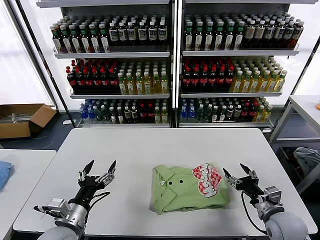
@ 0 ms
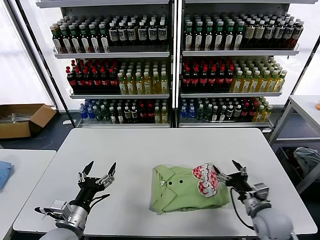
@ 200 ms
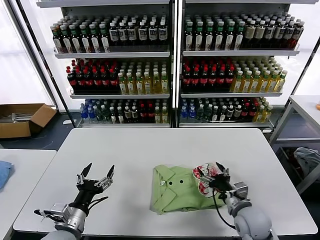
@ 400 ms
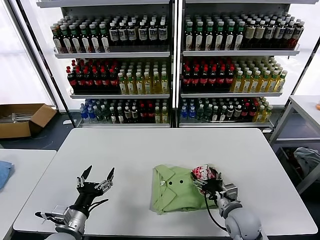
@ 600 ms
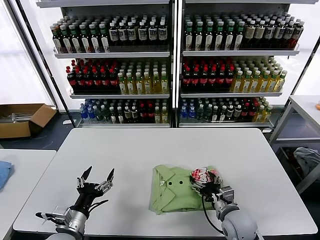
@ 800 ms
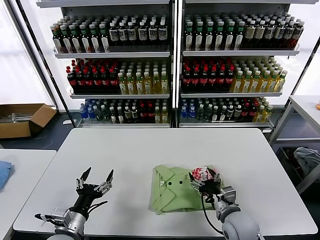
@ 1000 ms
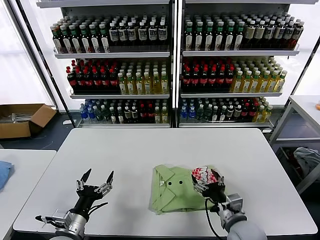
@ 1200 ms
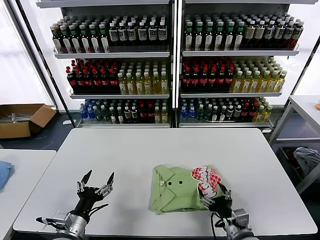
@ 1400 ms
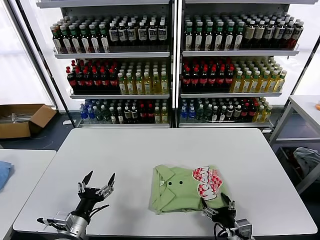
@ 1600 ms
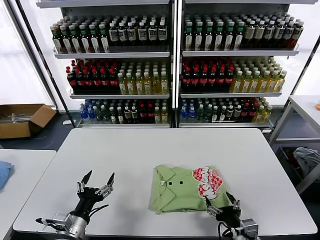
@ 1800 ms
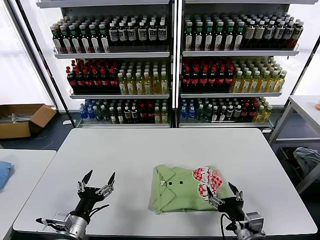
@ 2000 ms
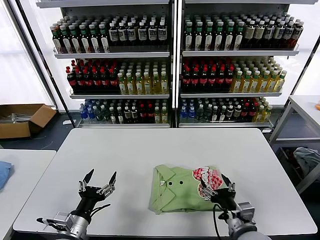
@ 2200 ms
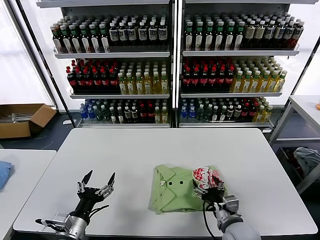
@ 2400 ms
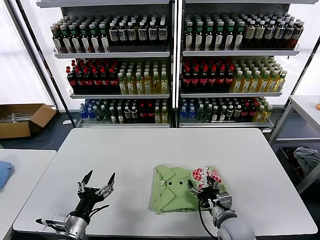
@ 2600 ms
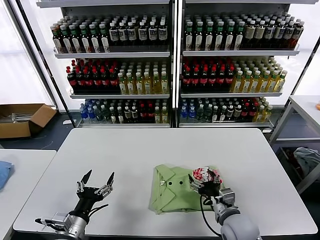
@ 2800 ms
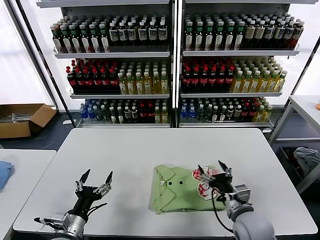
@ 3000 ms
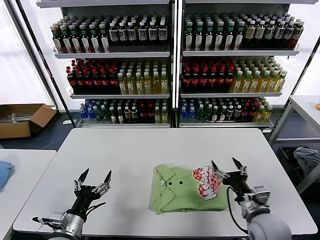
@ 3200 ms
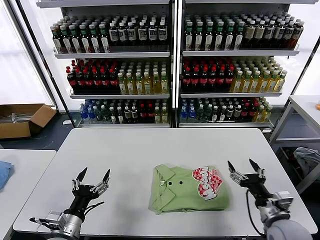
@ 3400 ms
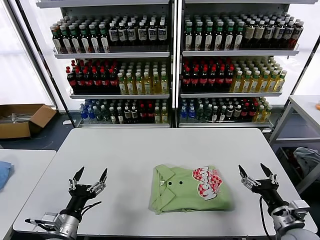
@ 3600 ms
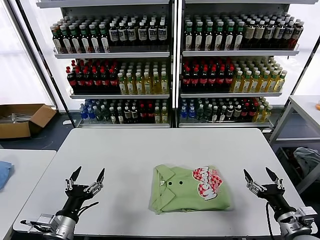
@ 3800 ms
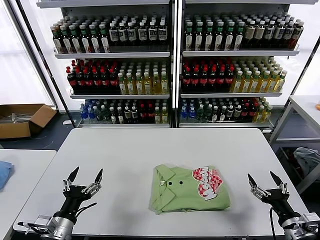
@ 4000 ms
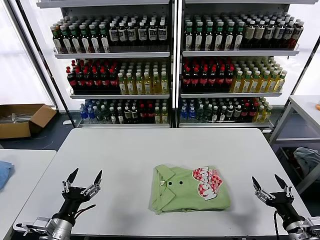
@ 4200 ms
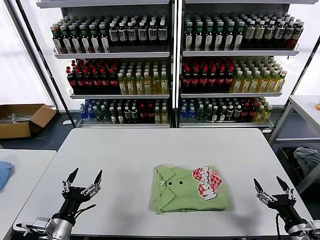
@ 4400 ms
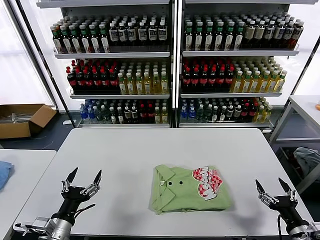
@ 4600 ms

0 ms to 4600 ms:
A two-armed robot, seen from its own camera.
Task of the whole recording: fold and organize the clothes.
Step, 0 ms to 2600 ms: Drag the clothes to the center of the table.
0 ms to 1600 ms: The right gripper is displaced to the left and backward by about 15 cm. Meanwhile the left gripper moves some 5 cm.
1600 ms to 3000 ms: The right gripper shifts about 10 cm forward.
3000 ms to 4600 ms: The right gripper travels to the right and backward by approximately 20 cm.

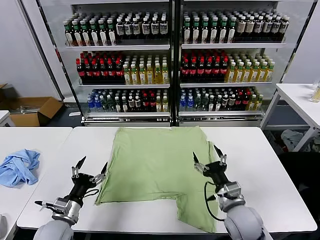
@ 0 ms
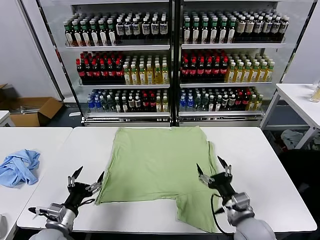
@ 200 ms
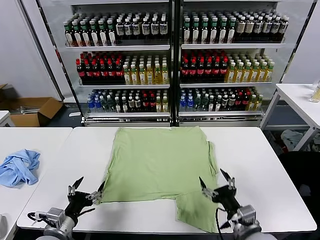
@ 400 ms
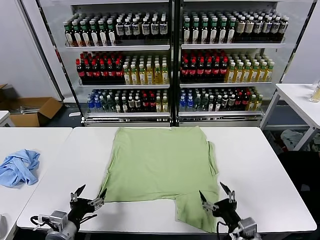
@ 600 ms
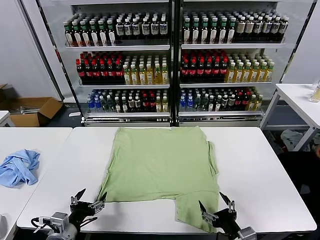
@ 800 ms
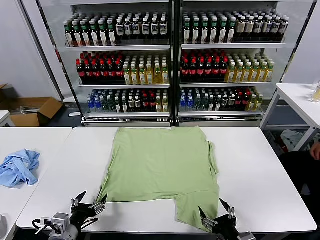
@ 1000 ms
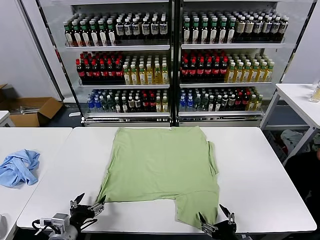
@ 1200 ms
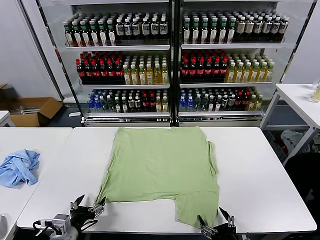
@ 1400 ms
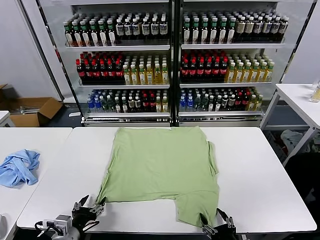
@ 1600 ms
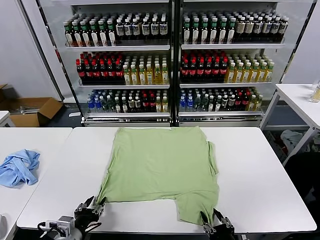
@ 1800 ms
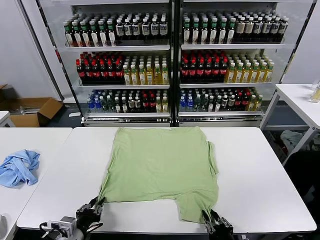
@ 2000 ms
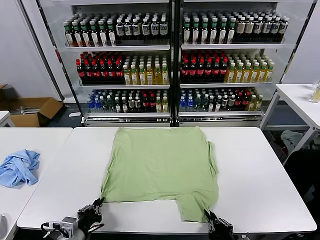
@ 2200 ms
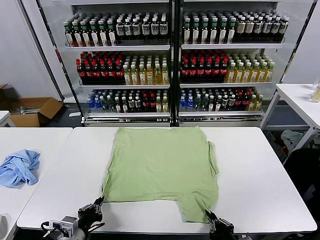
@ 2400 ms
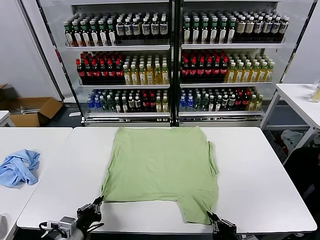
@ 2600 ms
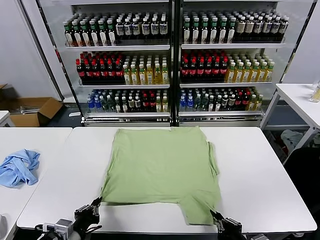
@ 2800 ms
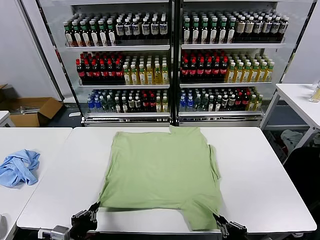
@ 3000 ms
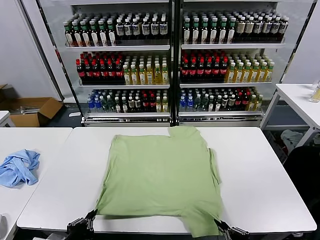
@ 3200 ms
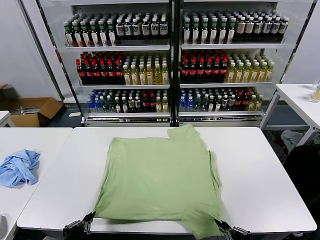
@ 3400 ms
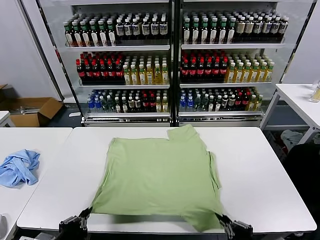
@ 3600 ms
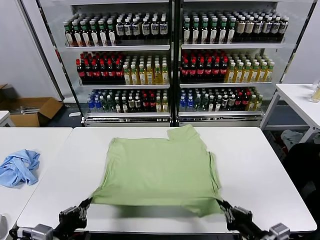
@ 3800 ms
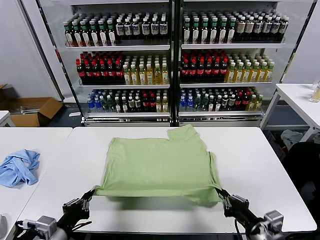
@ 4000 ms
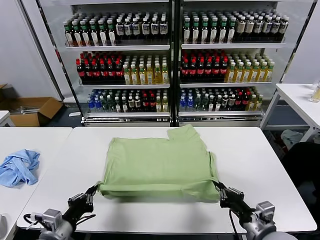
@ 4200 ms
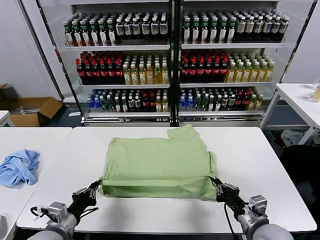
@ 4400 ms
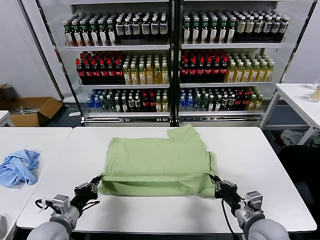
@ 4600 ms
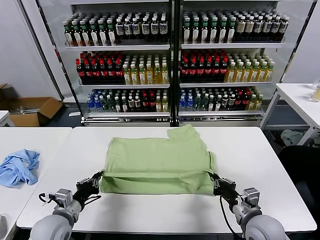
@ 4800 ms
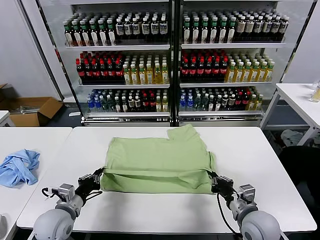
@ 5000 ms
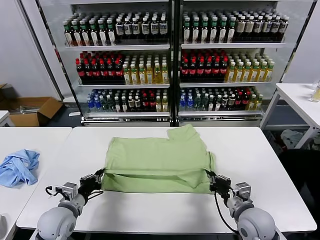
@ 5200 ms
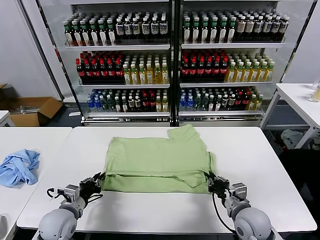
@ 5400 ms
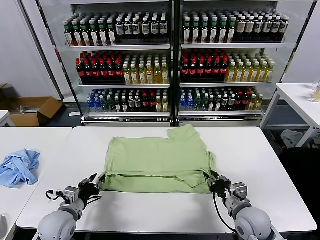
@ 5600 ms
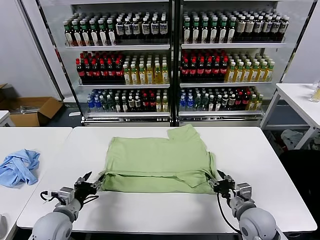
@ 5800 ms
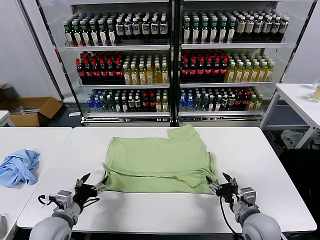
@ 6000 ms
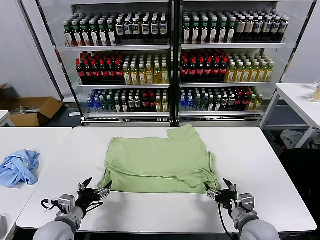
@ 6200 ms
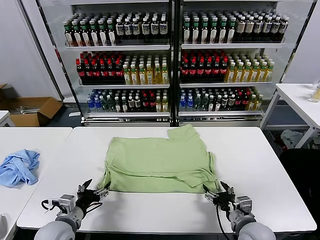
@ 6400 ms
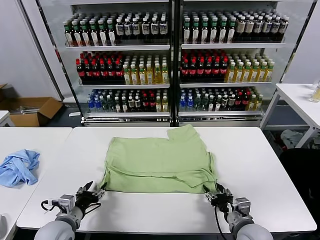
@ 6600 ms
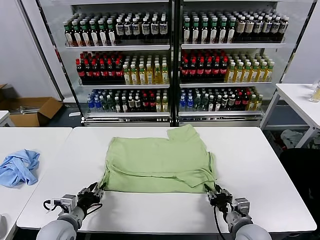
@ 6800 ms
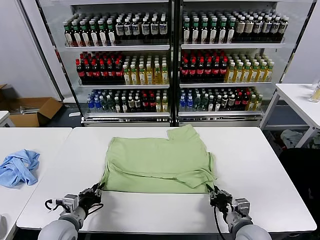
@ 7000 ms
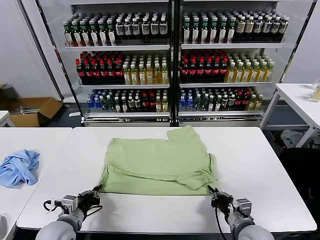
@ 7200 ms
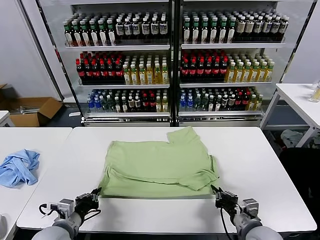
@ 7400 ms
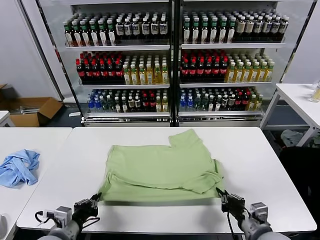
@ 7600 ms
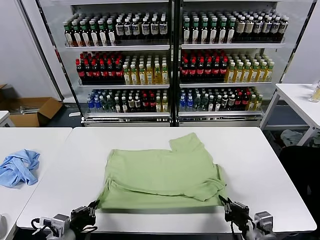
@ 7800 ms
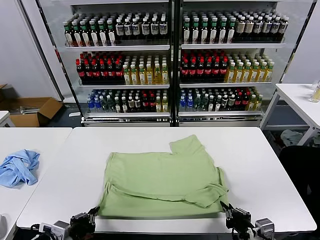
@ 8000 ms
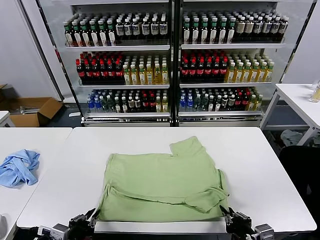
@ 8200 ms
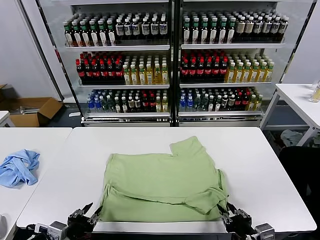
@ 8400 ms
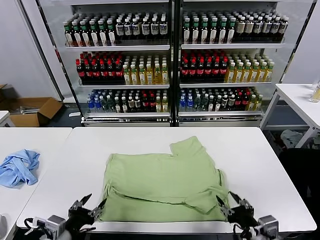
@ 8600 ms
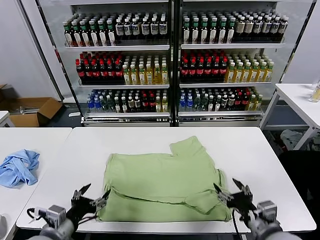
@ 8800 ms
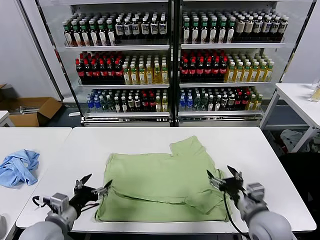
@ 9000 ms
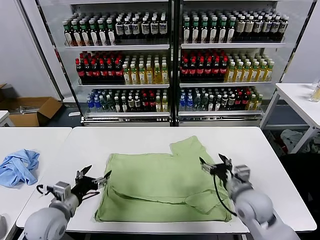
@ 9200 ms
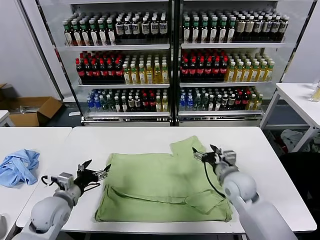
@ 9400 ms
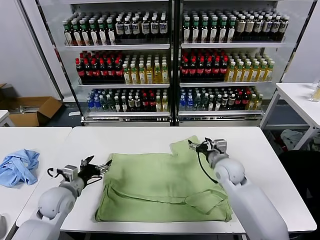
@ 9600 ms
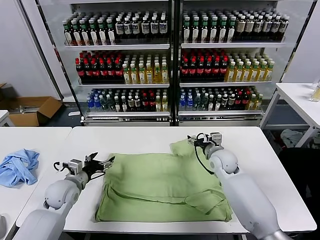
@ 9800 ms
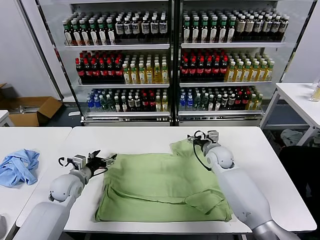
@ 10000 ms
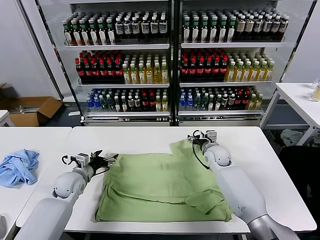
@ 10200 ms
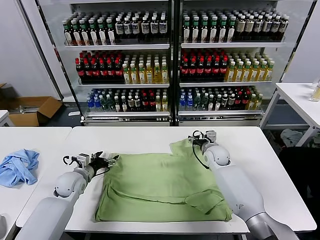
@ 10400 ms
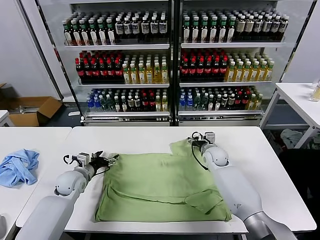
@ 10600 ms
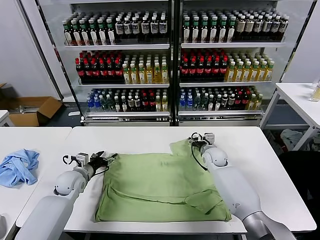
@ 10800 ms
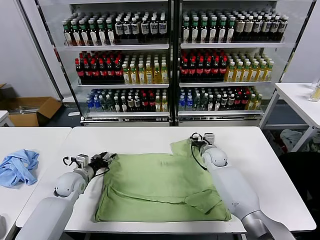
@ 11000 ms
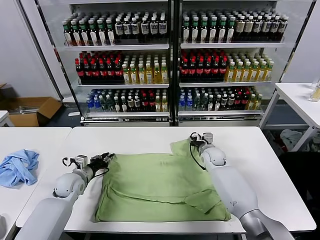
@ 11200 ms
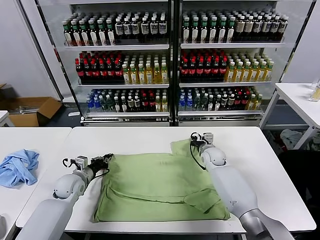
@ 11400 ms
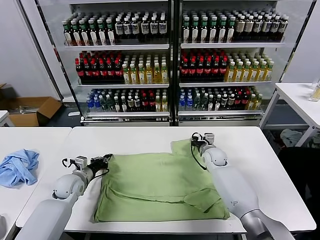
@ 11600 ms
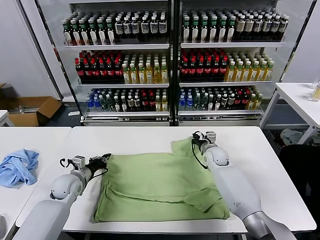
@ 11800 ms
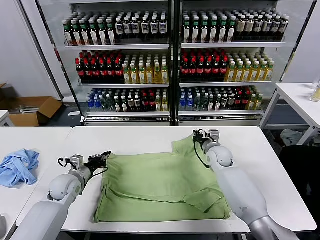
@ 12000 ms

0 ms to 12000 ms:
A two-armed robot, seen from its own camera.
Task of the whole recording: fold and organize the clothes.
Step, 0 ms to 2600 ms: use both grippers simultaneously to clamp the lower edge of the clothing fabric.
Step, 2800 ms to 5800 ms: use both grippers to drag the lower edge of the fabric forward and fold it over the upper edge.
Step, 6000 ms to 8400 ms: Drag the clothes downward with both gripper.
Step, 8600 ms to 11400 ms: use both grippers simultaneously to clamp the upper edge of the clothing fabric.
1600 ms to 3000 ms: The right gripper is displaced upward by roughly 5 cm, and closes its fingers. Meanwhile the left gripper ends up some 5 cm from where it was, and closes its fingers.
3000 ms to 4400 ms: The right gripper moves forward, roughly 15 cm. The left gripper travels forward by about 10 cm.
4400 ms to 6000 ms: The left gripper opens its fingers; the right gripper opens up.
6000 ms to 7600 ms: Both grippers move backward, roughly 5 cm. The right gripper closes up; the left gripper closes up.
7600 ms to 9000 ms: The right gripper is displaced forward by roughly 10 cm, and opens up, while the left gripper opens its fingers.
9000 ms to 10400 ms: The two grippers go about 20 cm forward.
10400 ms to 12000 ms: The left gripper closes up; the right gripper closes its fingers.

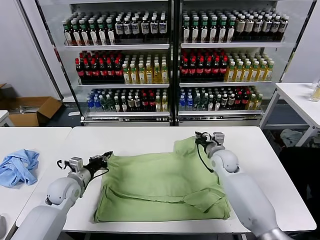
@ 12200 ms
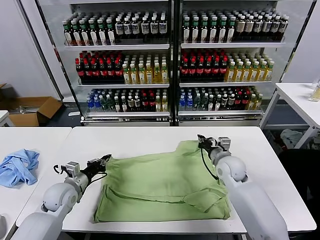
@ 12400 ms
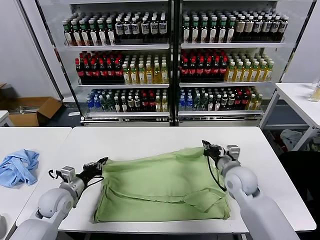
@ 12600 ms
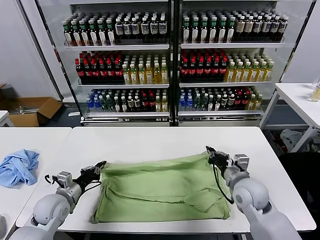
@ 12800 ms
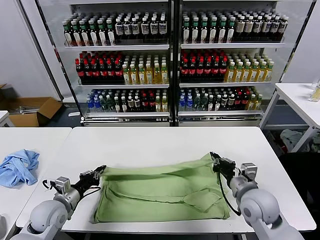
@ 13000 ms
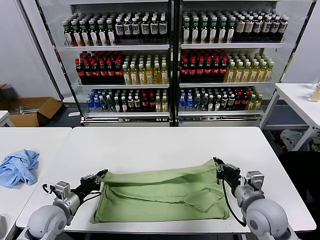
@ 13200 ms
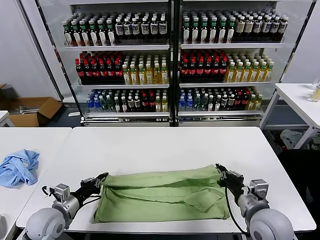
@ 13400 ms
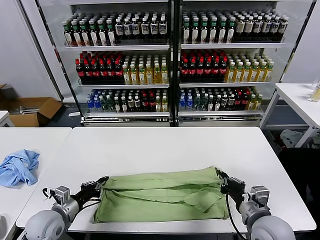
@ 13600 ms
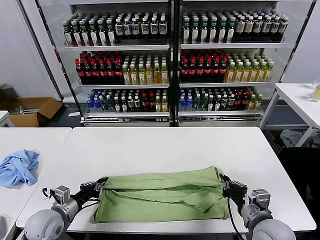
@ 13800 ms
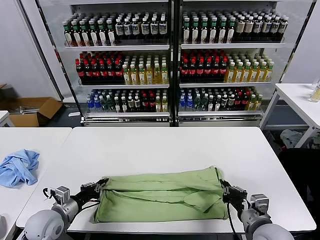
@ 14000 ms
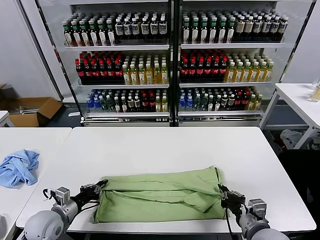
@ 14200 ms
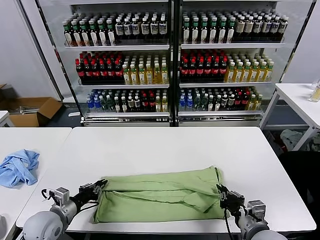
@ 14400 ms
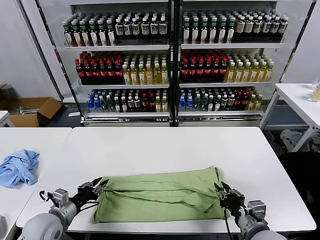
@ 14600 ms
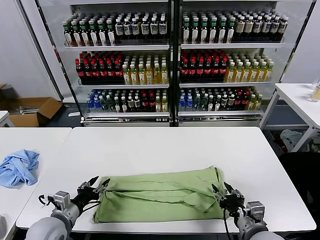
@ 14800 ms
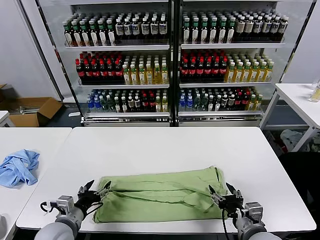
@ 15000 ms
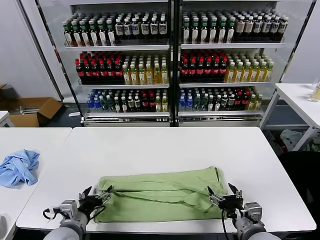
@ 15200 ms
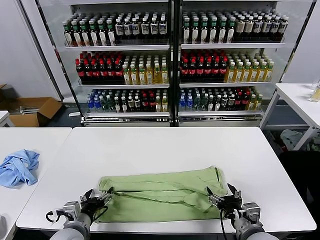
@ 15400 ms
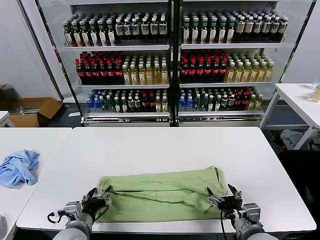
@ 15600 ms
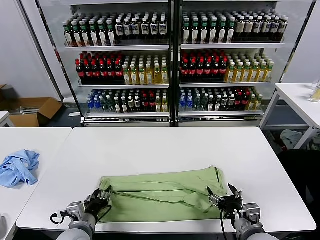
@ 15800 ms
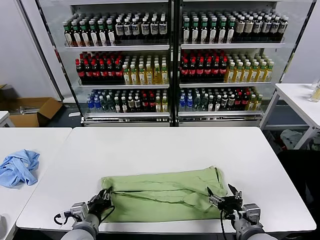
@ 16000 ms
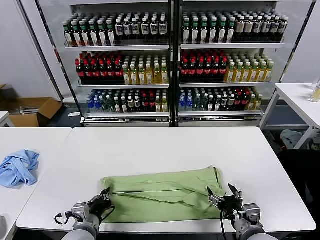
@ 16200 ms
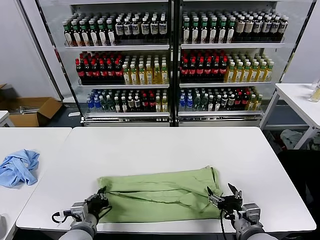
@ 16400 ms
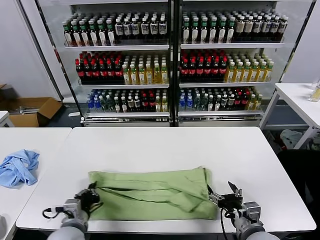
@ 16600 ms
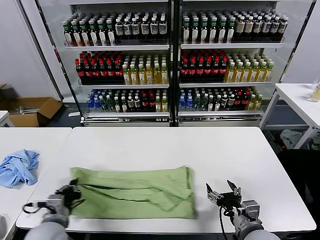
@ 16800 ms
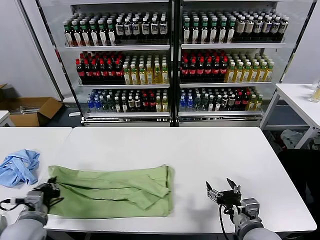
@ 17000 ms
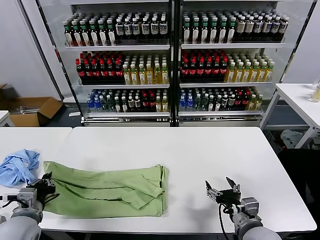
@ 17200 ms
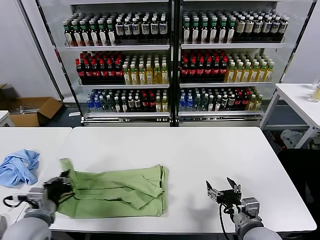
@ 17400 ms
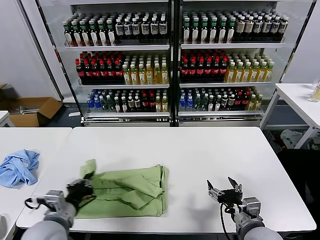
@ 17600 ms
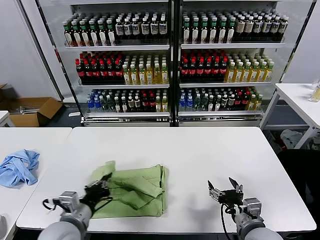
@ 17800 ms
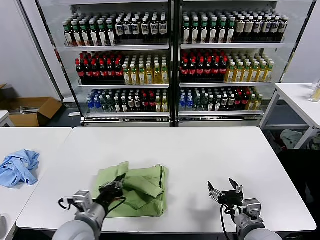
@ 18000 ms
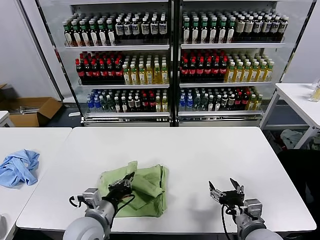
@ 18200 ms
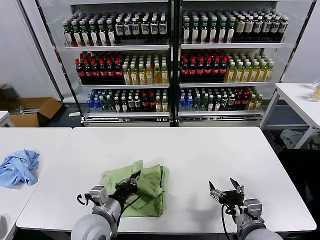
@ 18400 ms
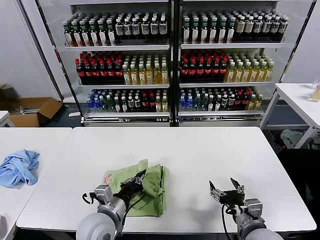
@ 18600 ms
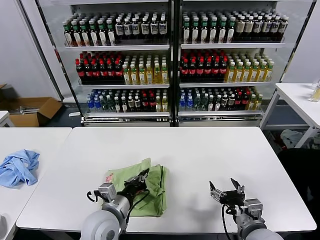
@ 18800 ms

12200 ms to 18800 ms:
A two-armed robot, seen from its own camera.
Task of the whole recording: fold and organize the clothes.
Step, 12200 ms to 14800 ms: use both grippers to drag the upper edge of the fabric backward and fold it over the lower edge.
Step, 15000 ms to 16200 ms: use the left gripper to clamp the left edge of the fabric.
12200 ms to 13800 ms: The left gripper moves backward, roughly 10 cm, while the right gripper goes roughly 25 cm backward.
13800 ms to 15400 ms: The left gripper shifts about 10 cm to the right and backward, and opens; the right gripper opens up.
15400 ms to 17200 ms: The left gripper travels to the left and upward by about 15 cm, and closes up.
17200 ms to 18800 ms: The left gripper travels to the right by roughly 20 cm.
